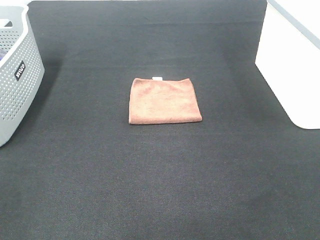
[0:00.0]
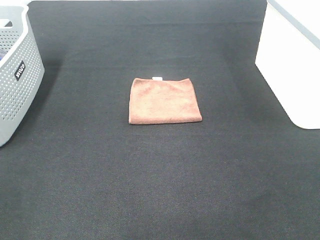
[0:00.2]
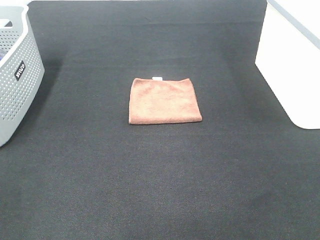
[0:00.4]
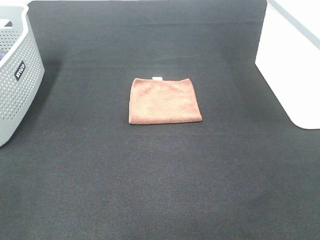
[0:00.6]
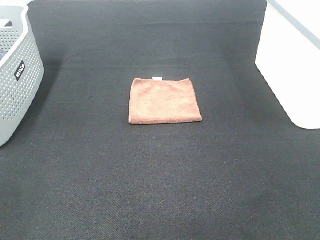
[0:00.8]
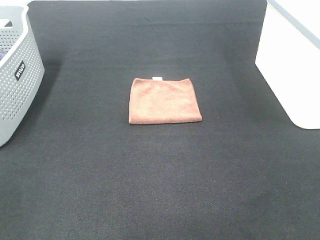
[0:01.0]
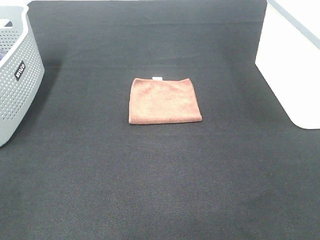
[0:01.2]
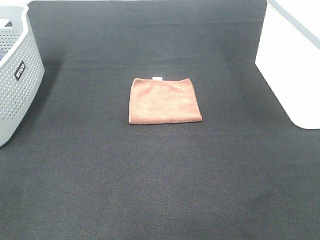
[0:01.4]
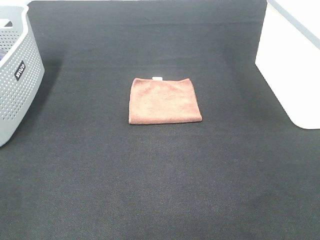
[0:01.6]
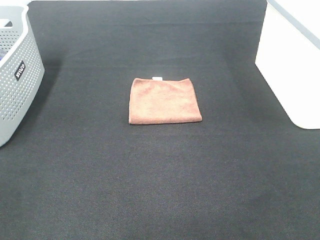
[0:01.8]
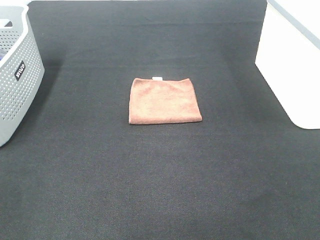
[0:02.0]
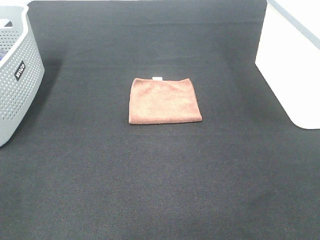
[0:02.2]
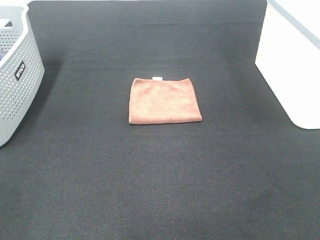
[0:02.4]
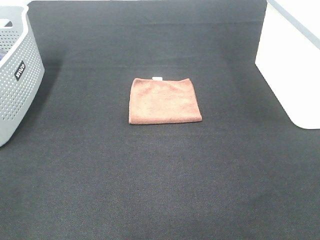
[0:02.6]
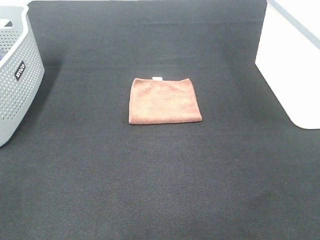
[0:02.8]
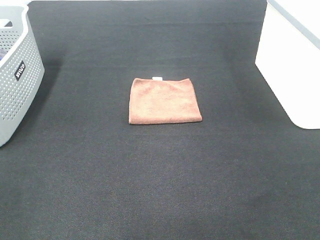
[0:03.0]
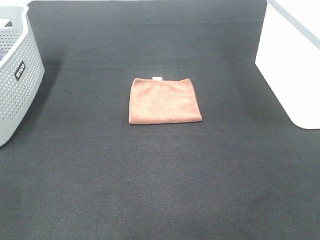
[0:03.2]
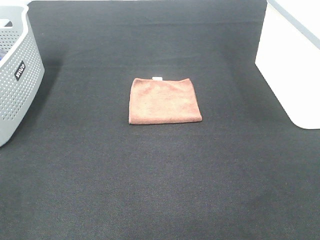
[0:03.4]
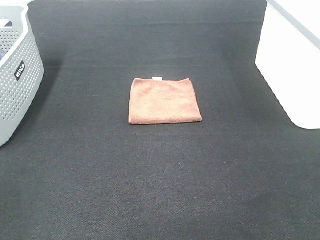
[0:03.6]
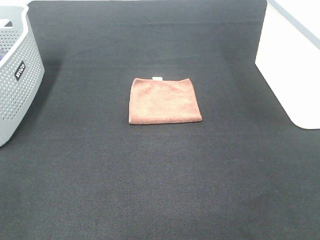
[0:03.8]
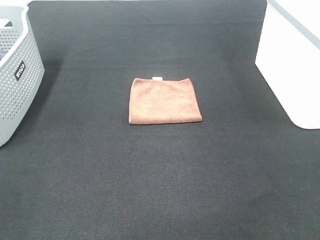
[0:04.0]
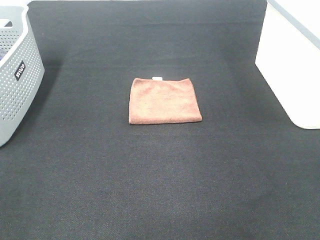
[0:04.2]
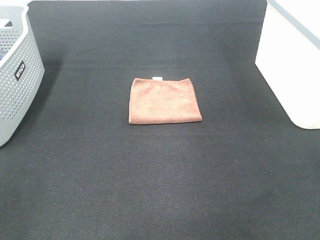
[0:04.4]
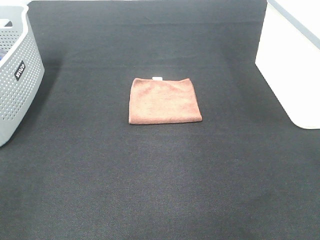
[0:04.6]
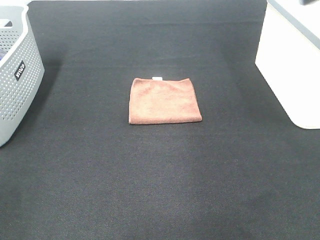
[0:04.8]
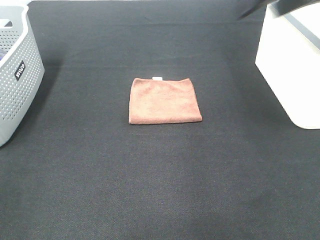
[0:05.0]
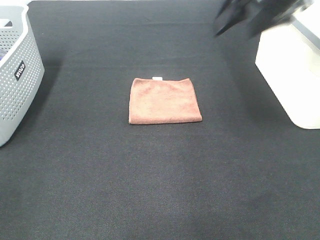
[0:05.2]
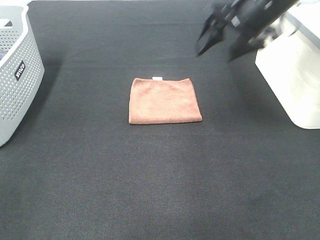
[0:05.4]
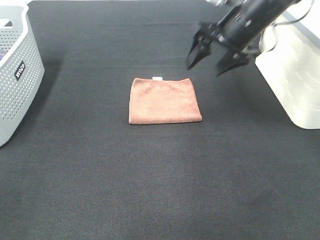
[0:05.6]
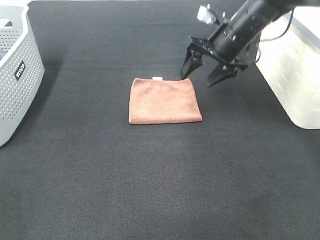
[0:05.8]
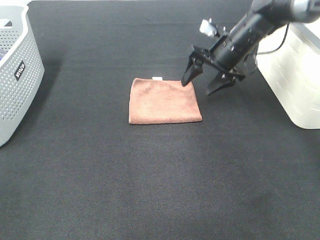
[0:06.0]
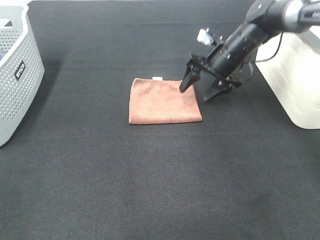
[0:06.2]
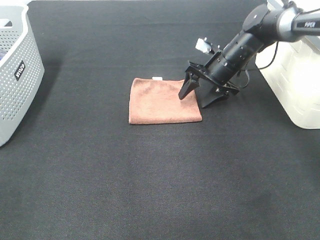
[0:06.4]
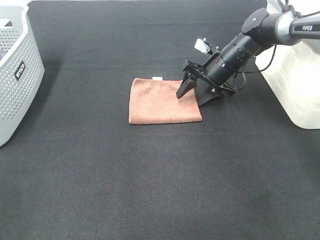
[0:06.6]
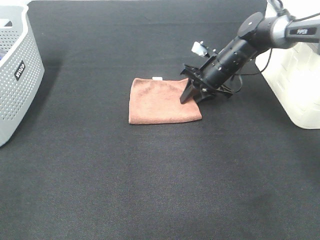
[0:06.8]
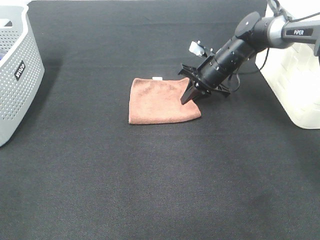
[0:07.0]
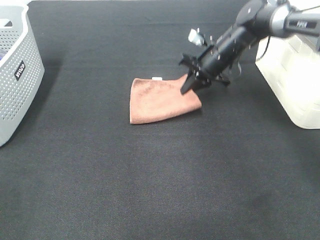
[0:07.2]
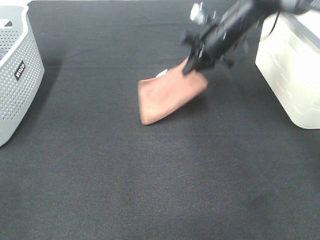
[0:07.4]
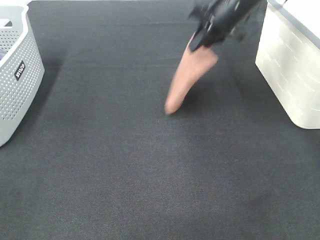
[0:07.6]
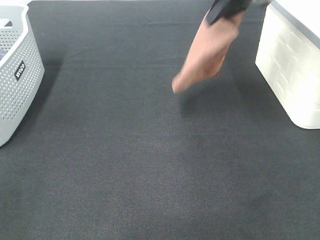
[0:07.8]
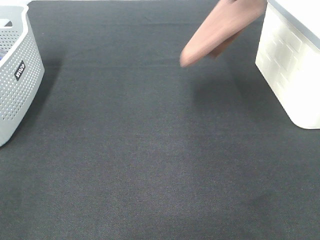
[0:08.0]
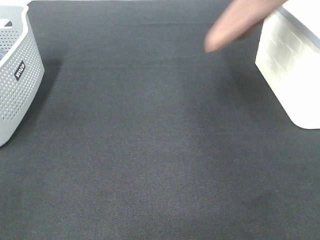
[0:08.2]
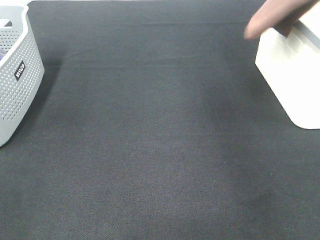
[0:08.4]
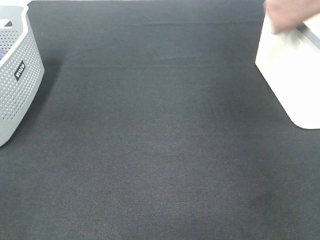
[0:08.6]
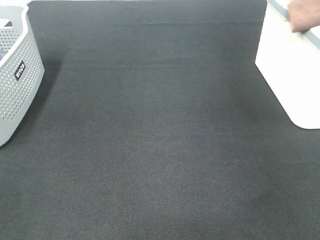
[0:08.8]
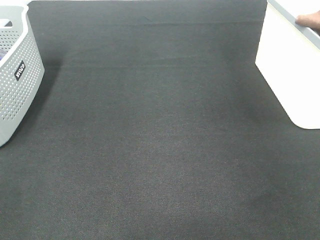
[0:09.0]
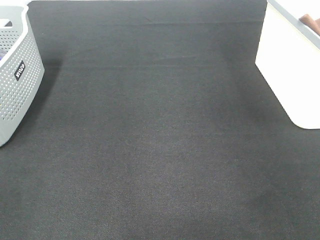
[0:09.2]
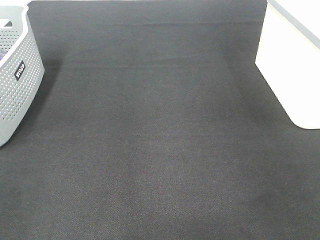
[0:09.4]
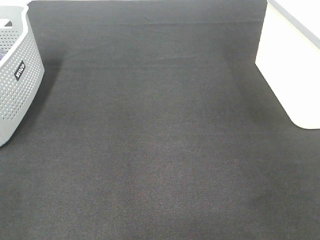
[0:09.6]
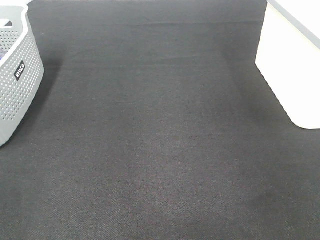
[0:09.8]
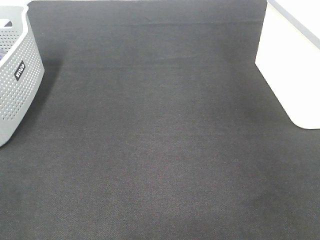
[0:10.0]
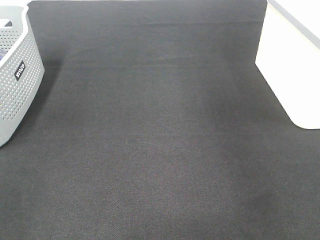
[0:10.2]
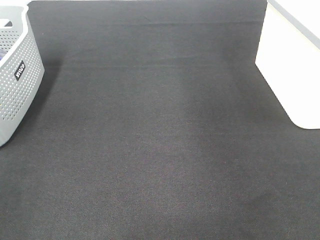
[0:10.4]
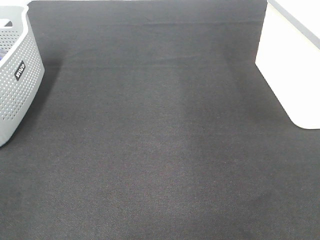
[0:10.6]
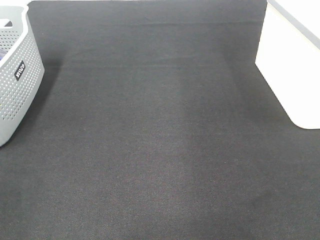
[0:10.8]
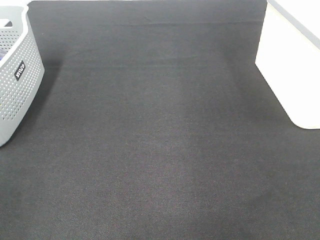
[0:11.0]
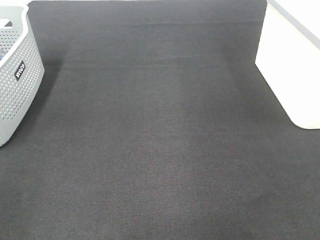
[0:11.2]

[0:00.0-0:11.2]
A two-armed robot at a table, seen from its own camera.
Step, 0:00.0 to 0:07.2: Right hand: grab the folded brown towel.
Step, 0:07.4 to 0:09.8: Right hand: place the brown towel in right basket.
0:00.0 to 0:03.2: Both grippers stay about where they are.
0:04.8 to 0:06.4: The right gripper moves downward and forward, roughly 35 cm.
0:06.4 to 0:08.0: The right gripper travels upward by roughly 25 cm, and closes.
0:08.0 to 0:09.6: The right gripper is displaced to the right by about 20 cm, and opens.

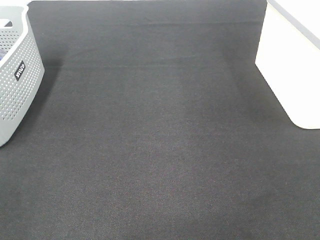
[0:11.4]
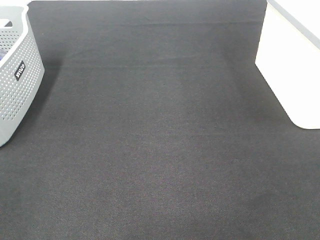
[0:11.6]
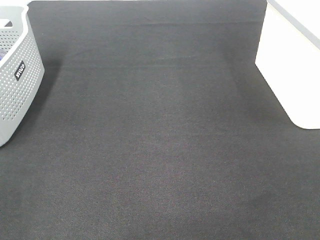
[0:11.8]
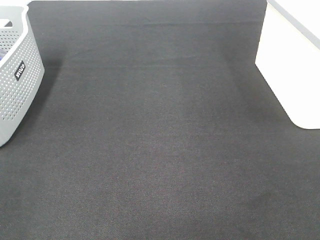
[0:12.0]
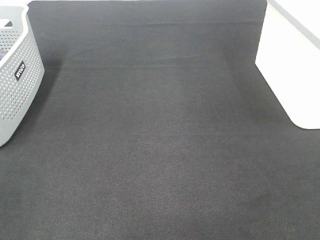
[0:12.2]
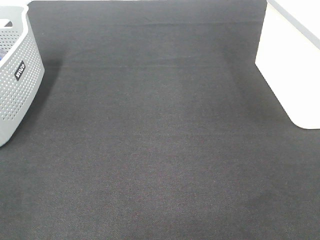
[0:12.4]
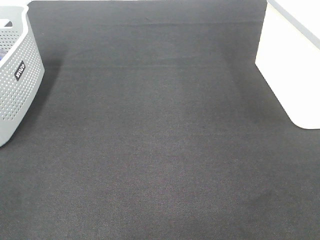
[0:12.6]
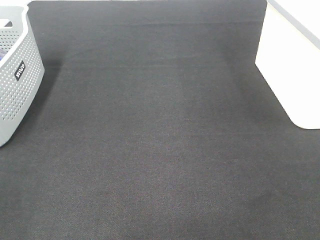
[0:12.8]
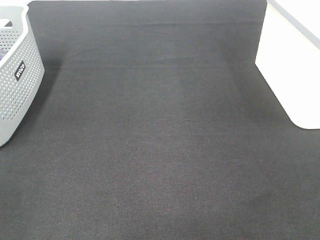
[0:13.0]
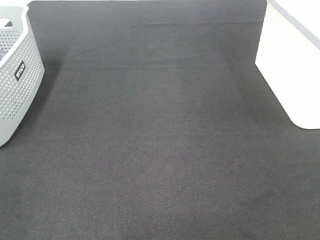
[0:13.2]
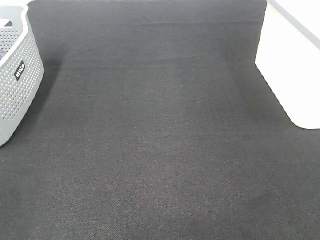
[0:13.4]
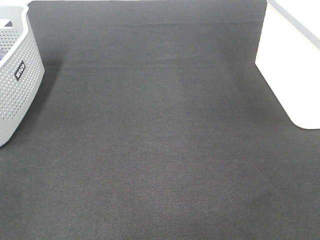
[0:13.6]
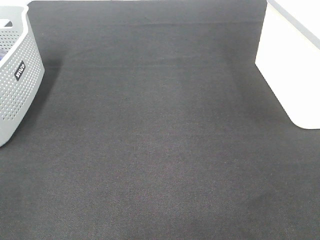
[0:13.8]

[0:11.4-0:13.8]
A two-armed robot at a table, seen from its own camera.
0:12.6 to 0:13.8: The two grippers keep their place.

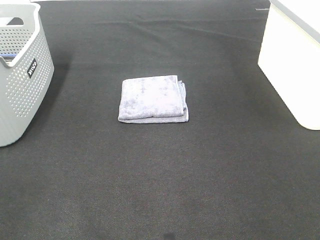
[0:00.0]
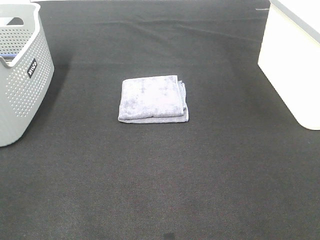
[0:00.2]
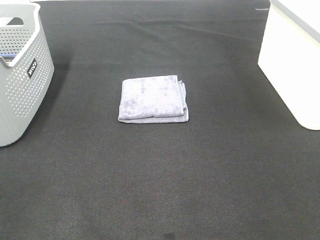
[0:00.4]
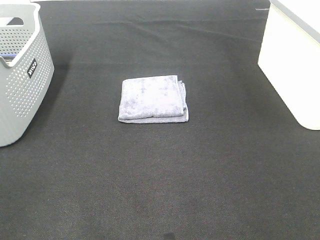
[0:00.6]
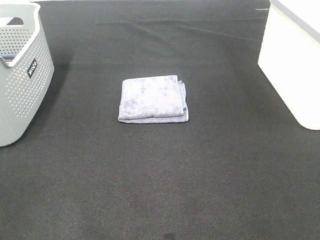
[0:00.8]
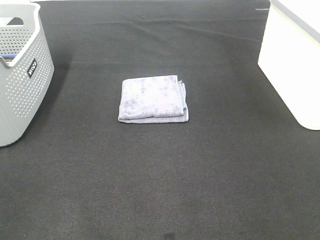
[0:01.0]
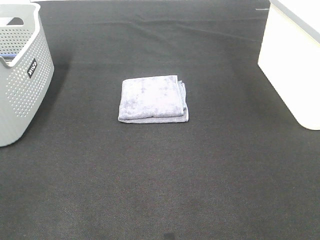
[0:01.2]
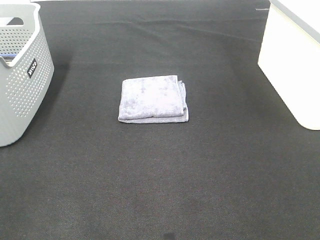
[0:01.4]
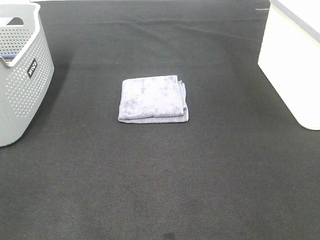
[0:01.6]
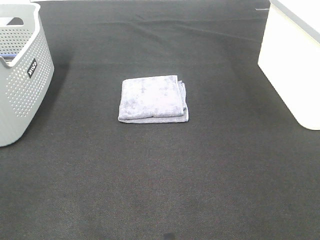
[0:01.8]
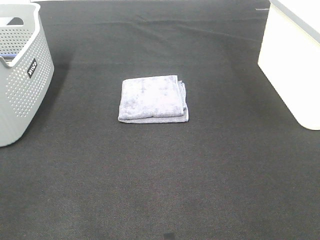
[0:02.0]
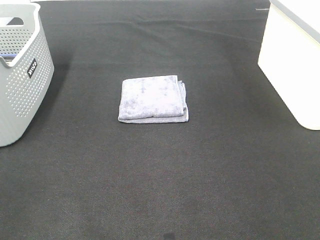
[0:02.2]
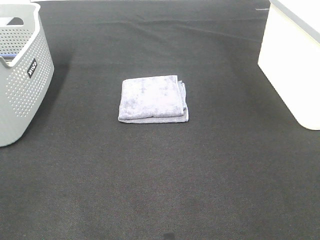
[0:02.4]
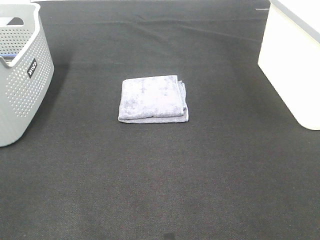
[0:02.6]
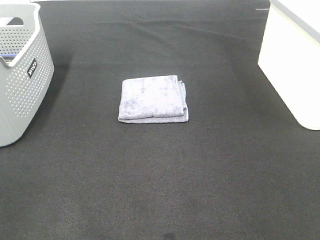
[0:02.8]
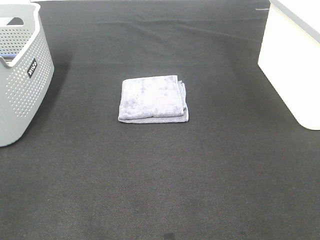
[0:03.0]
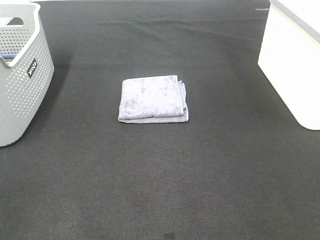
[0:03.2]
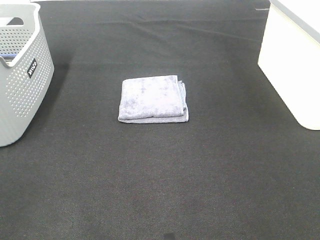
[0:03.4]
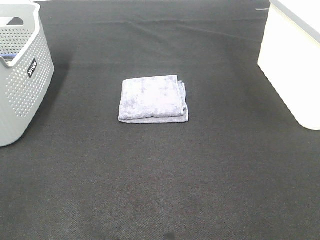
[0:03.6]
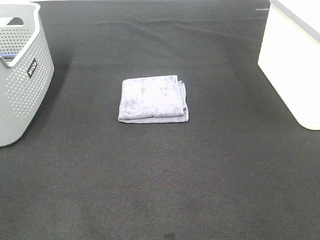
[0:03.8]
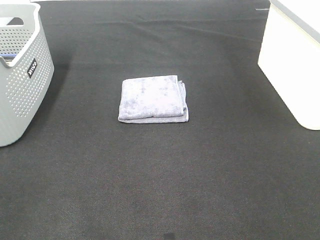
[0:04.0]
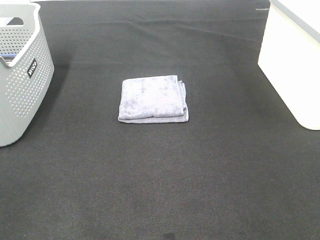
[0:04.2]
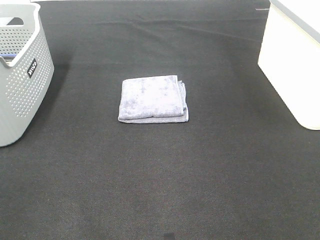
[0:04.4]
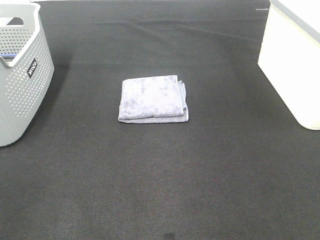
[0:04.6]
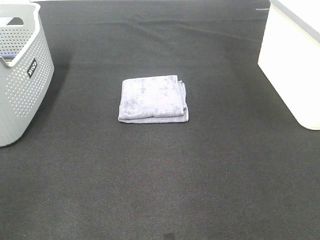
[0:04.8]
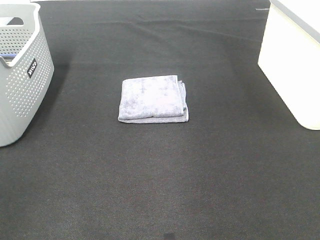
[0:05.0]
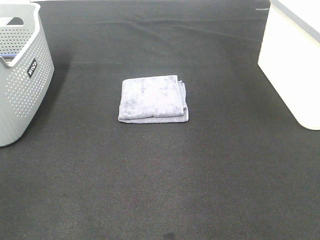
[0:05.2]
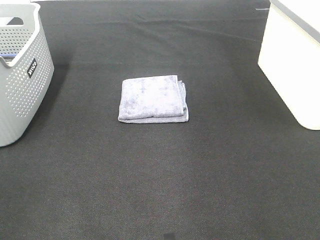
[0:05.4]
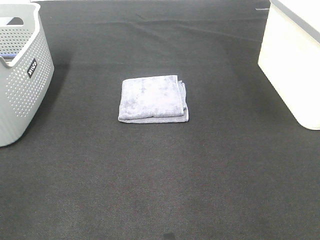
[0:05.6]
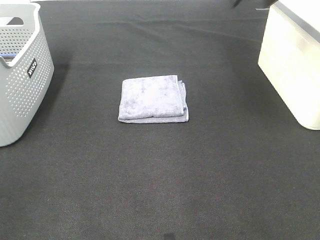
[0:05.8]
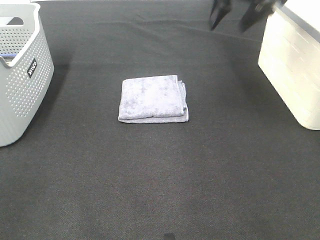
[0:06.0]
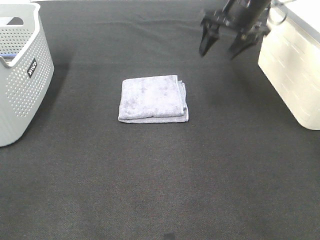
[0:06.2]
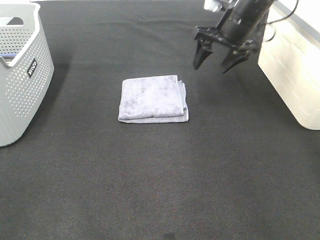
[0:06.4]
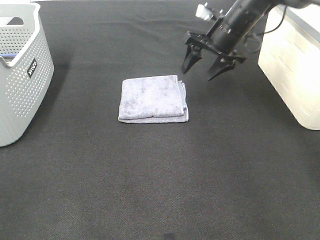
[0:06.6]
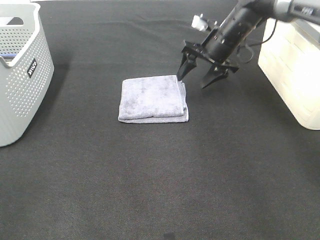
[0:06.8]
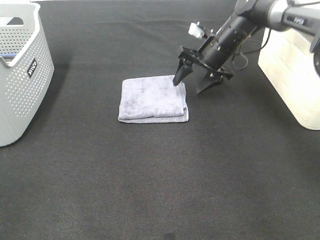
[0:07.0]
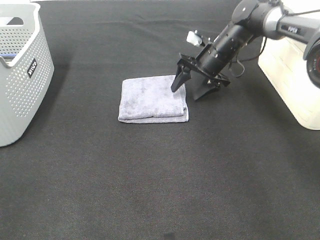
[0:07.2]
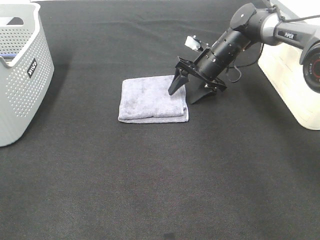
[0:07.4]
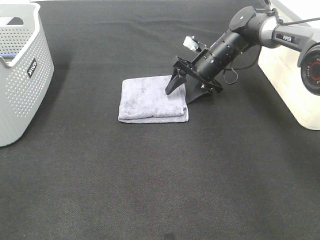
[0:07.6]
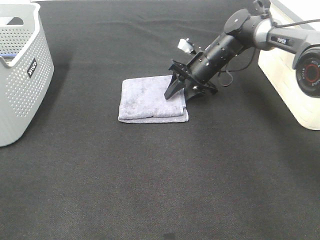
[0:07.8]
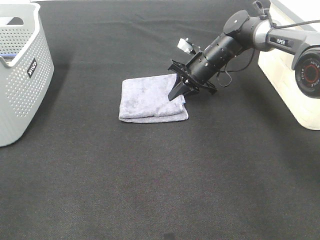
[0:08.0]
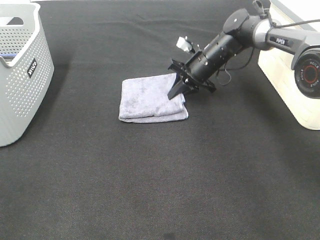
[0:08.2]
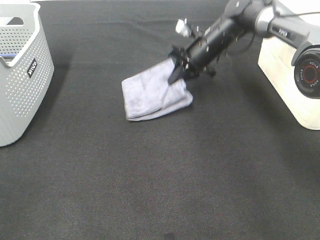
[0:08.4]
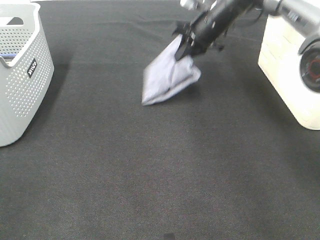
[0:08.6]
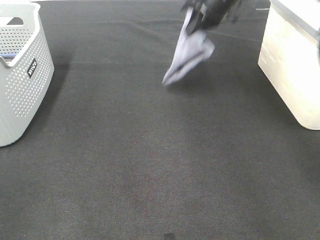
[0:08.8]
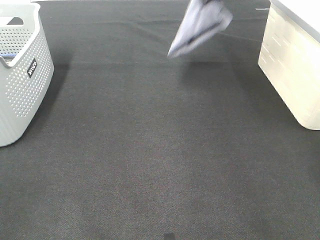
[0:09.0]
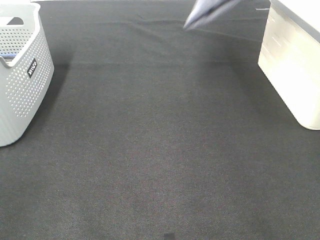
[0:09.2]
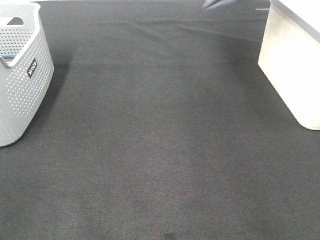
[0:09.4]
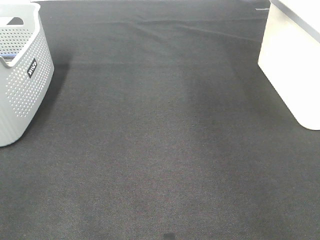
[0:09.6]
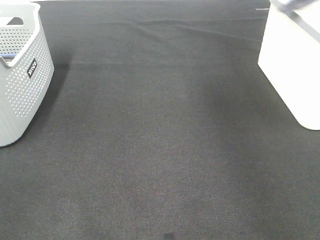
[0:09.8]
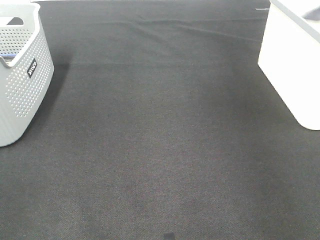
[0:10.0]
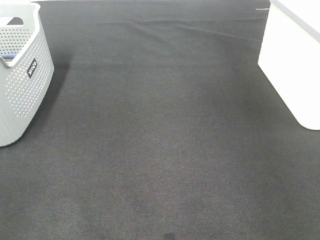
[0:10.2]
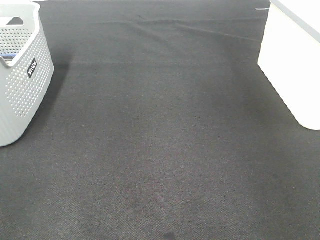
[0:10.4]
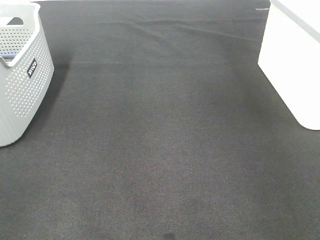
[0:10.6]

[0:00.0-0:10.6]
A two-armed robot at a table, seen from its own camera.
Step, 0:00.0 to 0:08.2: Right hand: grab the folded grey towel.
0:00.0 to 0:03.0: Both grippers stay put.
0:04.6 to 0:06.0: The right gripper moves forward, some 35 cm.
0:06.0 to 0:07.6: The right gripper is displaced downward by about 20 cm.
0:07.6 to 0:09.0: The right gripper heads upward, covering some 25 cm, and closes its fingers.
0:09.0 to 0:10.6: The right gripper is displaced to the right by about 25 cm, and opens up.
